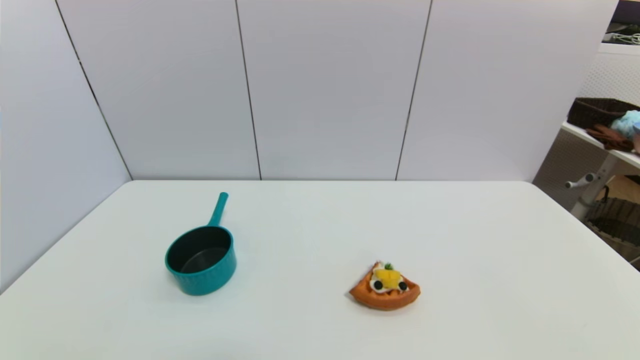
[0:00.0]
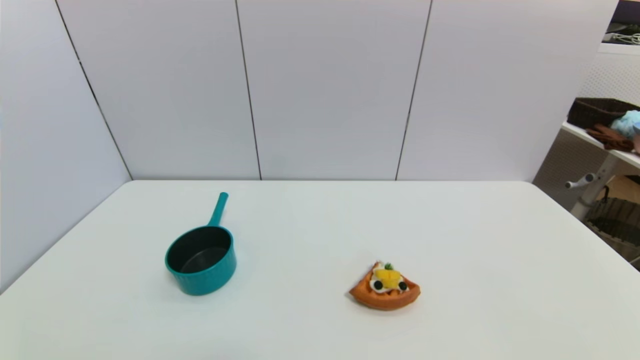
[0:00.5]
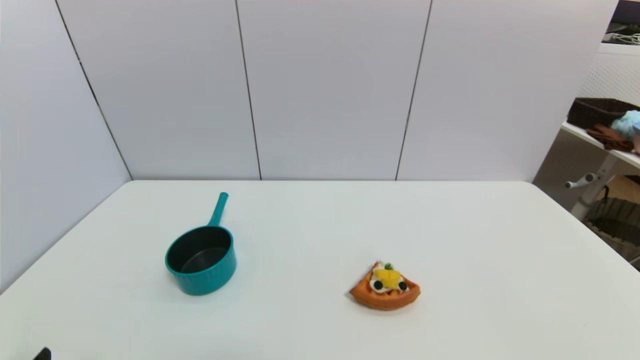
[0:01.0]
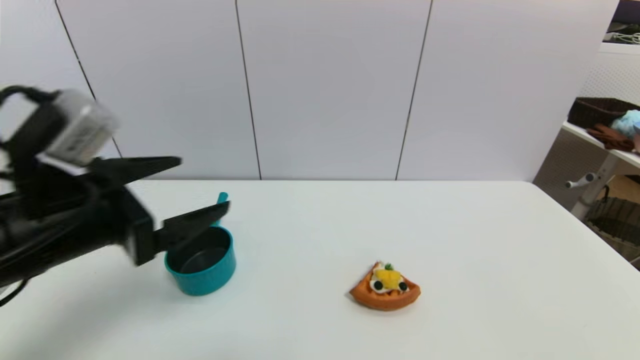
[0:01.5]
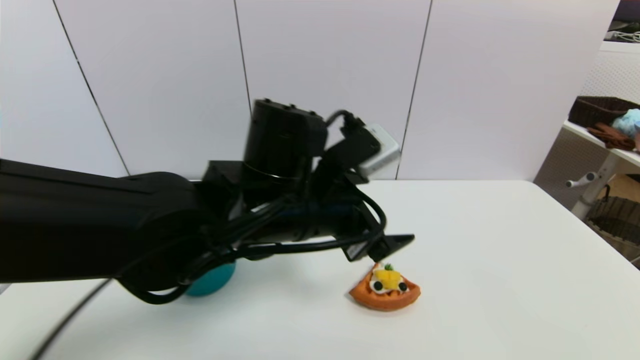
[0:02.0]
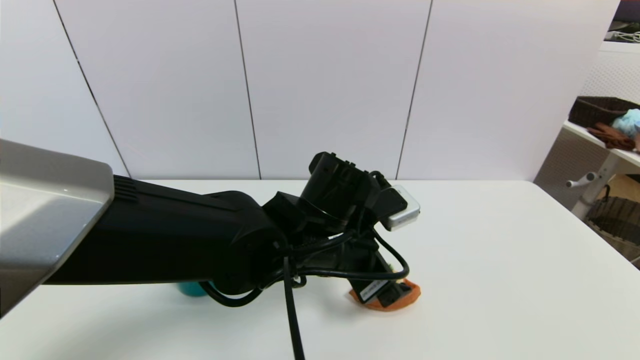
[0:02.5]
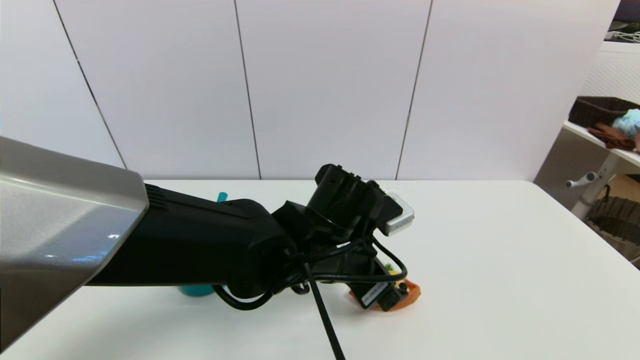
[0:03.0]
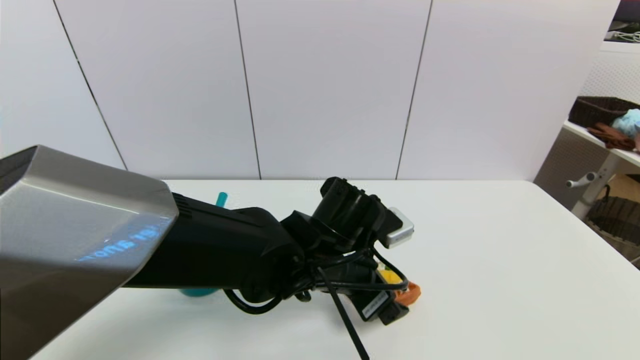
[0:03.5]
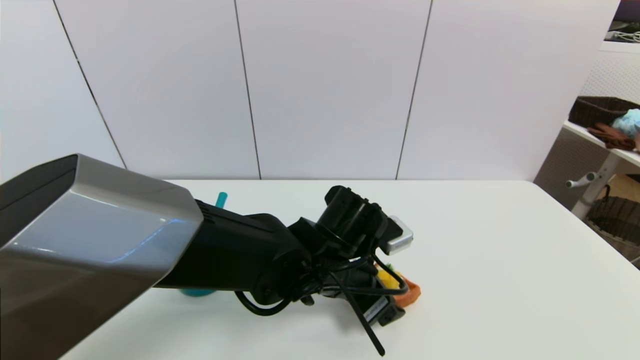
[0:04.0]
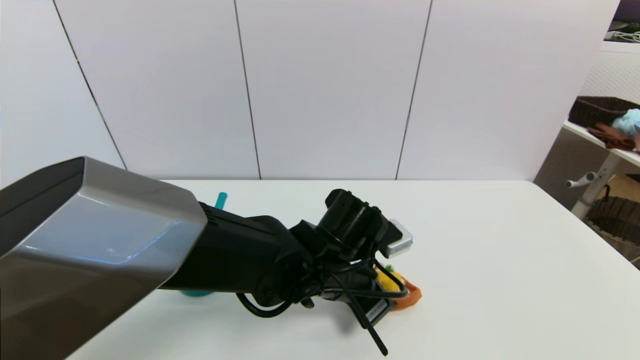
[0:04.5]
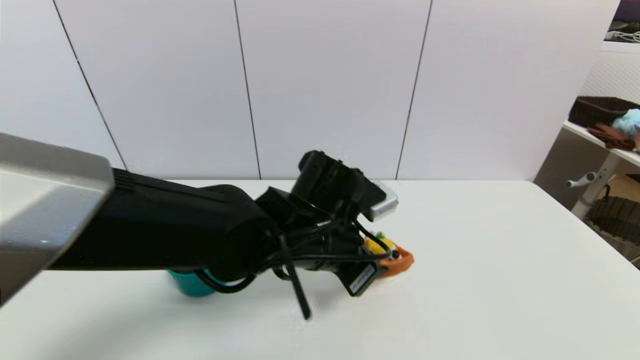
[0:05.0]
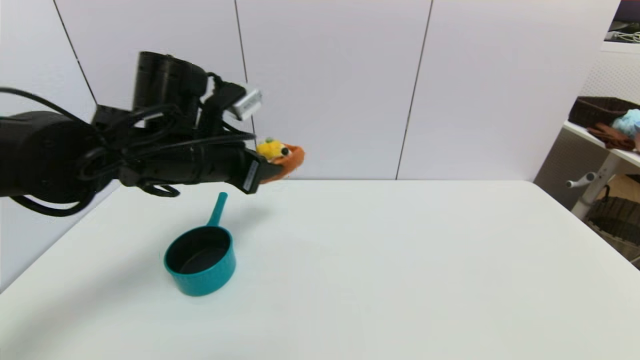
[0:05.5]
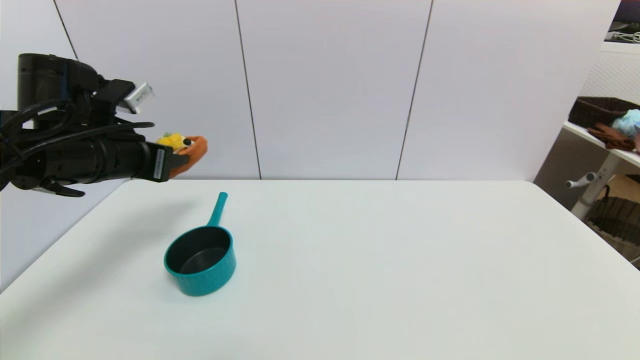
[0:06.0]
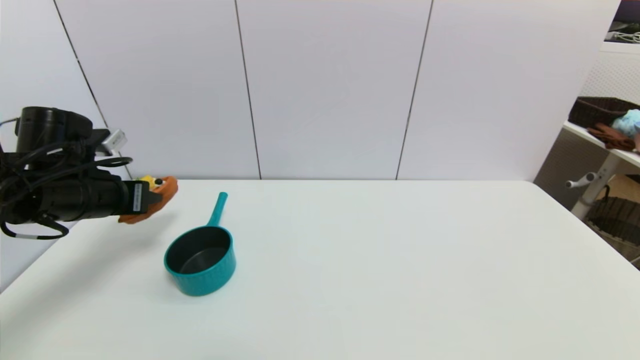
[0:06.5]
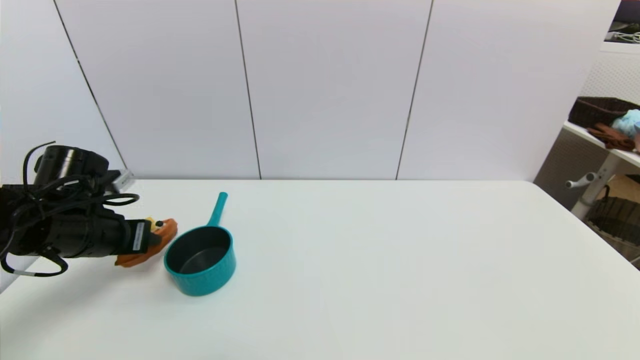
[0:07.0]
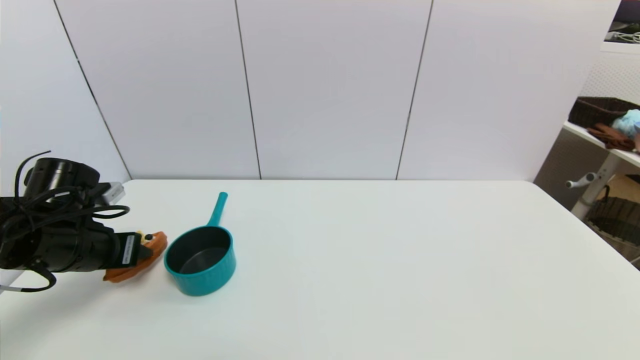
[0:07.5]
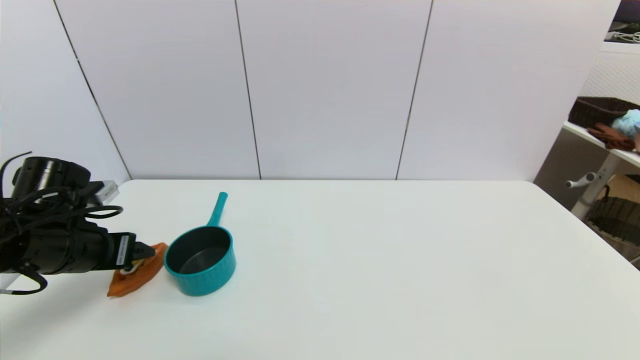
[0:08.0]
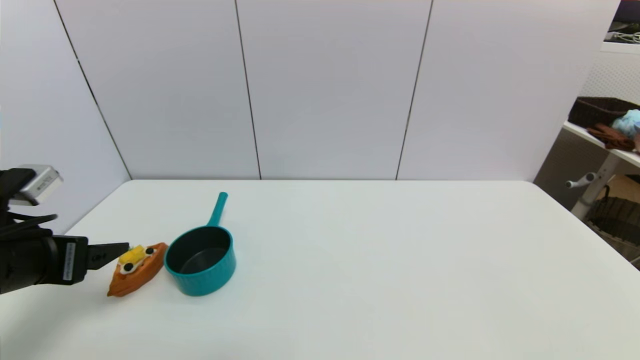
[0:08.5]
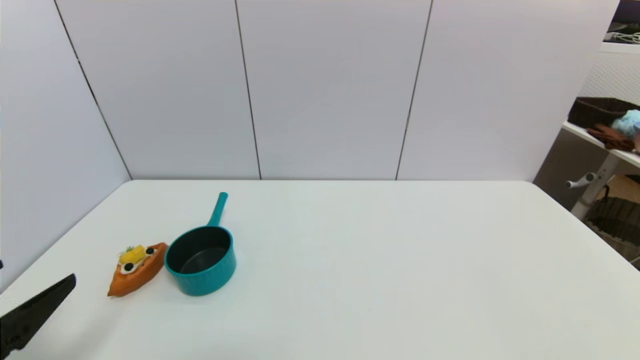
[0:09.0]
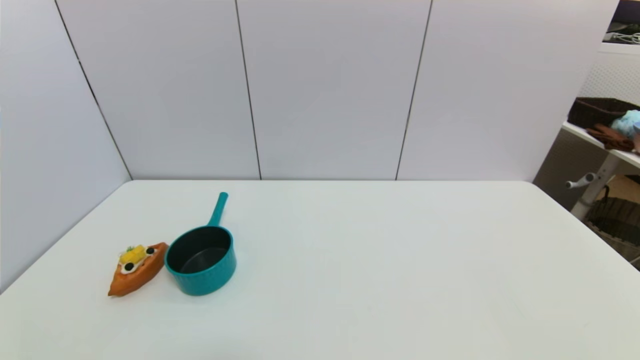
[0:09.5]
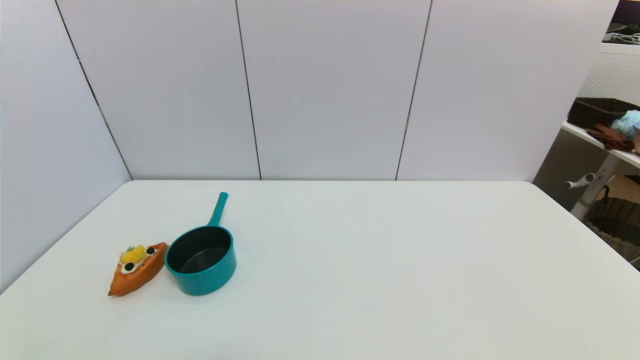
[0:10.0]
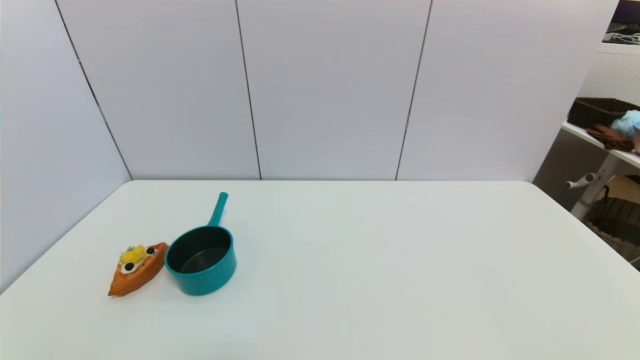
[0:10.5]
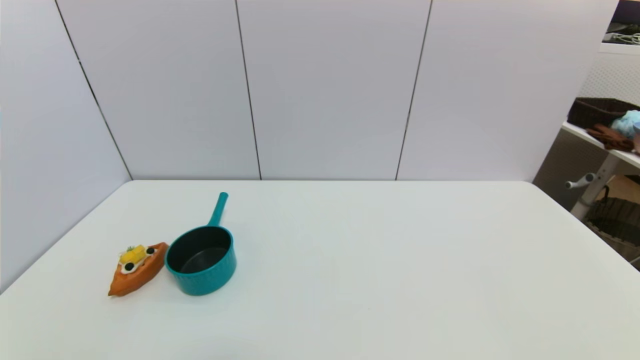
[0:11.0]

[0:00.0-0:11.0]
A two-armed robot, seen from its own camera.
Step, 0:01.0 to 0:04.5: Grasp the pizza with left gripper.
Step, 0:05.0 to 0:07.5: Place the pizza on the table with left gripper.
0:00.0 to 0:02.0: The left gripper is displaced to the right, forward and upward by approximately 40 cm.
0:02.0 to 0:03.5: The left gripper moves downward, about 10 cm.
0:03.5 to 0:05.5: The left gripper shifts approximately 20 cm to the left and upward, and closes.
0:05.5 to 0:07.5: The left gripper is displaced to the left and downward by about 20 cm.
0:07.5 to 0:09.0: The left gripper goes approximately 20 cm backward, and opens up.
0:09.0 to 0:11.0: The left gripper is displaced downward and backward by some 15 cm.

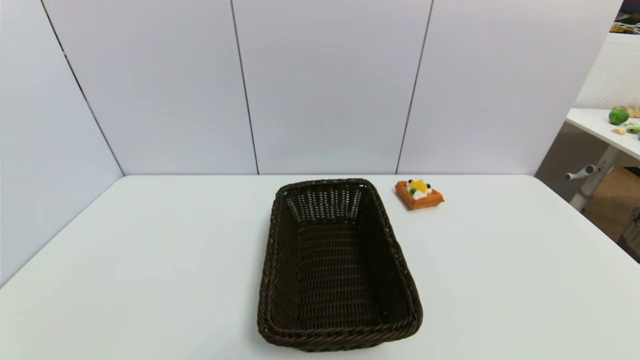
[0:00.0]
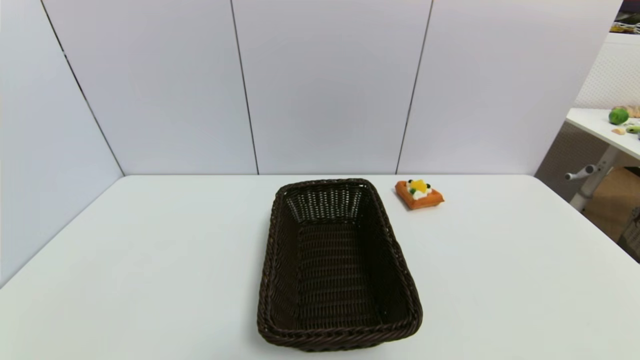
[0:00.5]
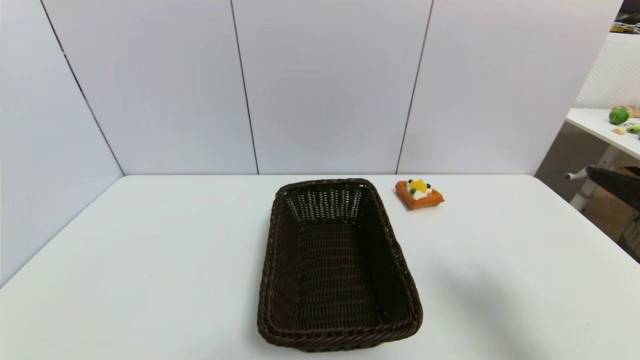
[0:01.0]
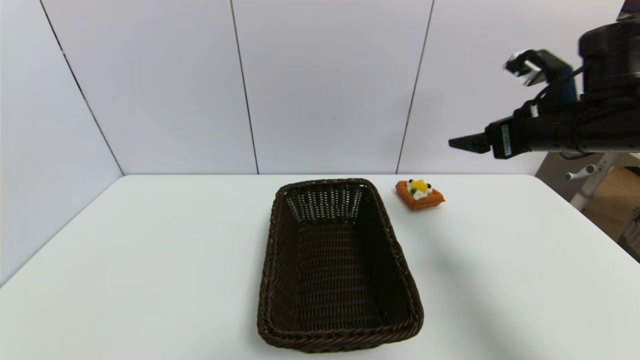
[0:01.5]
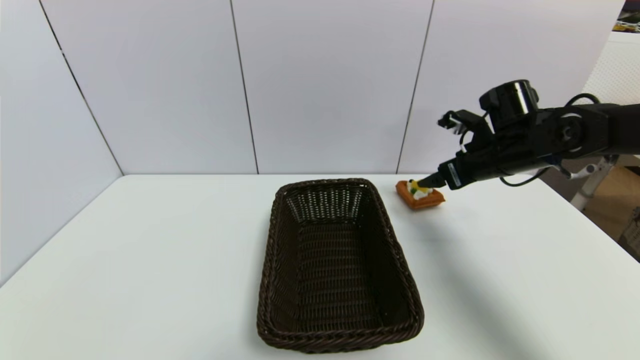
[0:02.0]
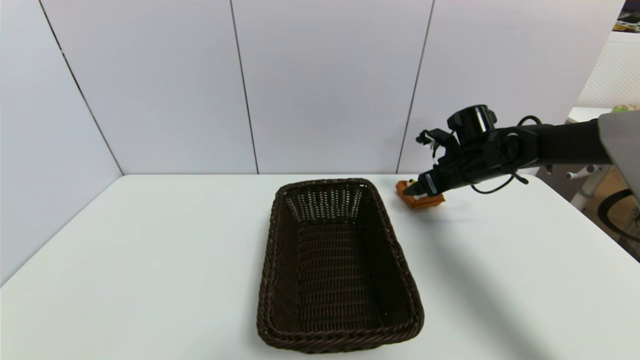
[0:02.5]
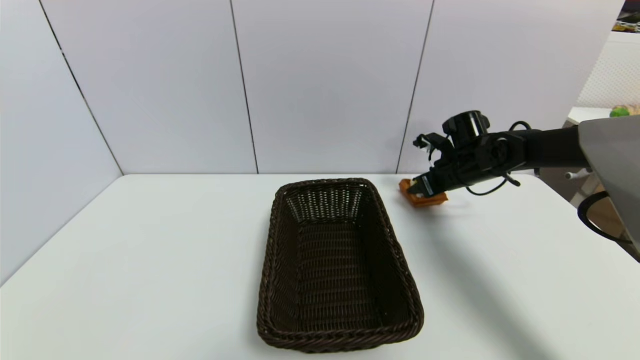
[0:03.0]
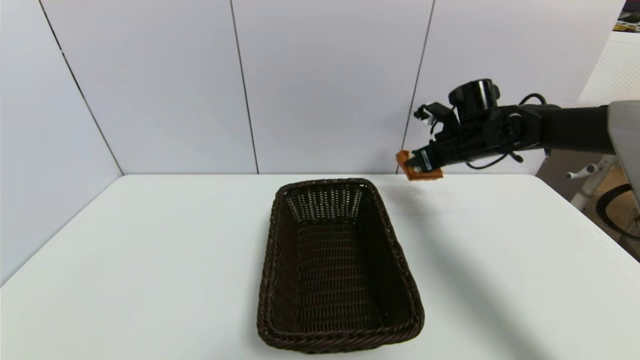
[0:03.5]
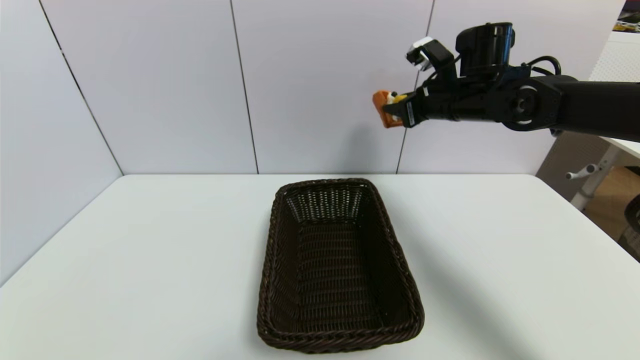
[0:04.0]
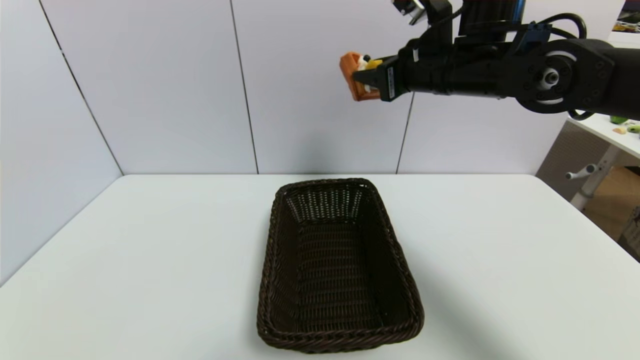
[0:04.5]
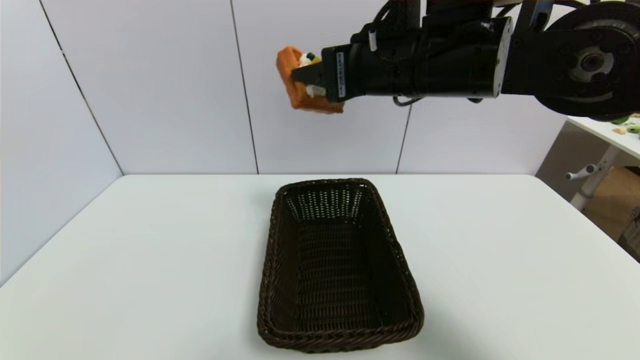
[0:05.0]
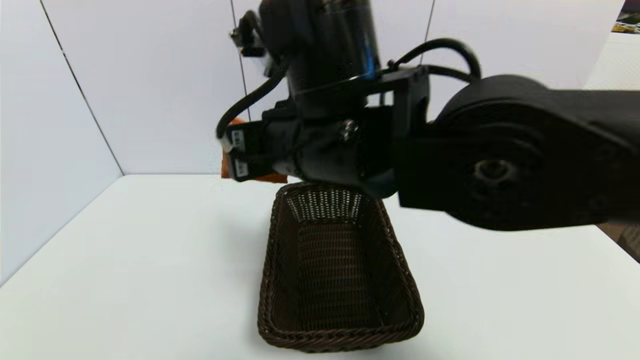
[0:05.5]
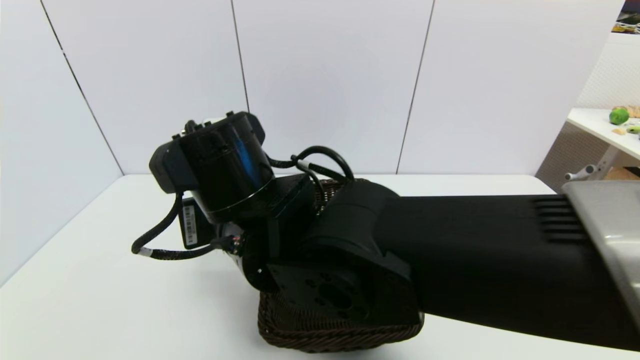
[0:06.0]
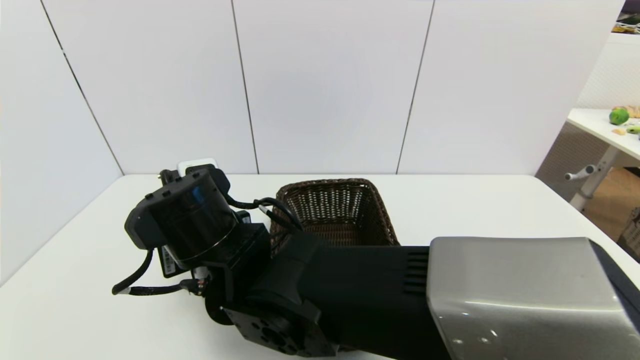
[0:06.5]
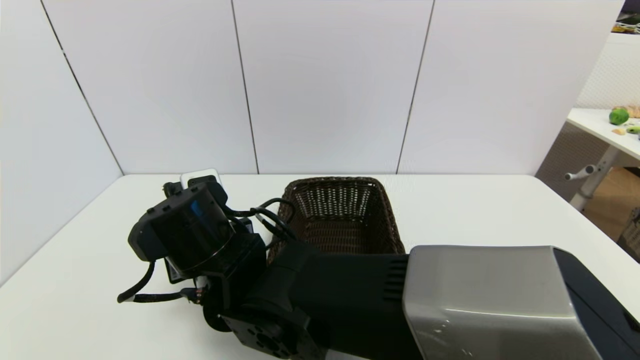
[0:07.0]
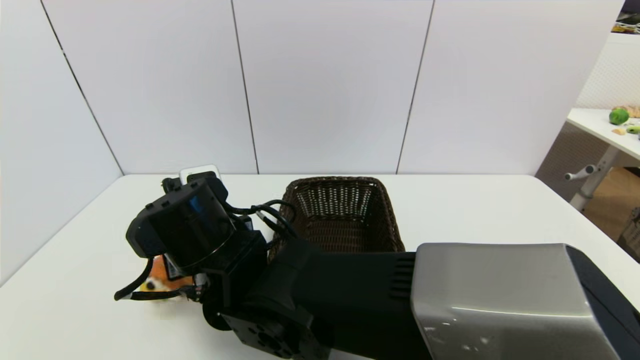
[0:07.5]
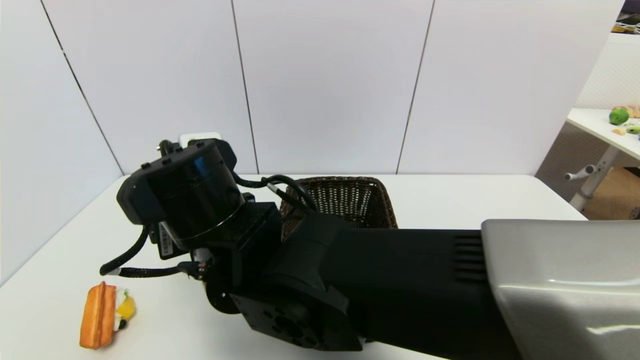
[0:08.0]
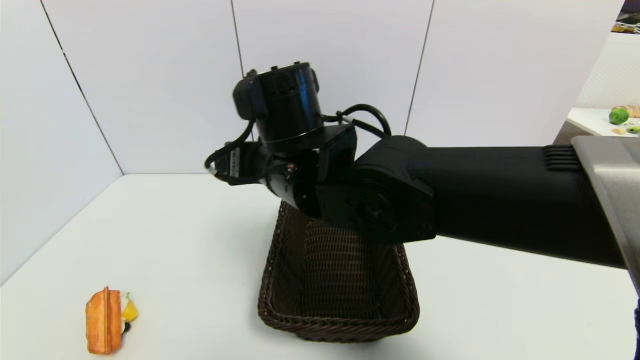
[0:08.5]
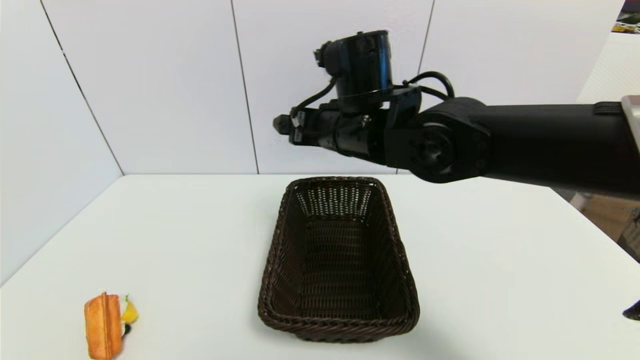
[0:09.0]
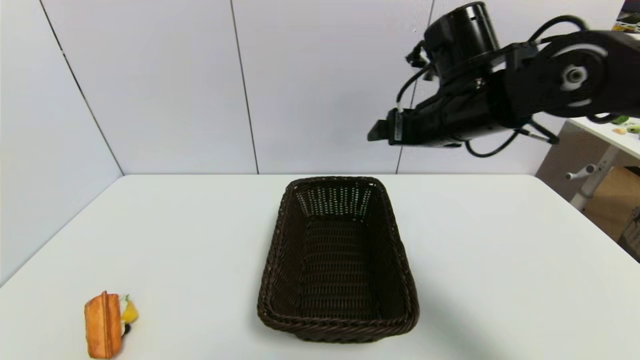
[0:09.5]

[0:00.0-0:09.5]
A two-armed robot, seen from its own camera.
Step, 0:00.0 to 0:03.0: Grasp the pizza with right gripper.
Step, 0:03.5 to 0:09.0: Place the pizza on the table with right gripper.
0:00.0 to 0:02.0: The right gripper travels forward by some 40 cm.
0:02.0 to 0:04.0: The right gripper shifts approximately 10 cm upward and to the left, and closes up.
0:04.0 to 0:05.5: The right gripper shifts some 30 cm to the left and backward.
0:05.5 to 0:07.5: The right gripper moves downward and to the left, some 15 cm, and opens up.
0:07.5 to 0:09.5: The right gripper is displaced to the right and upward by about 30 cm, and opens.
